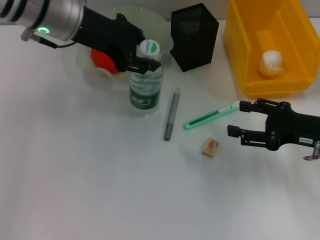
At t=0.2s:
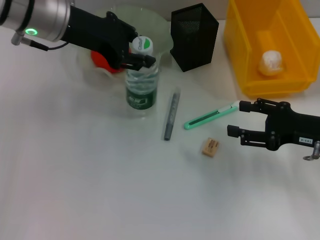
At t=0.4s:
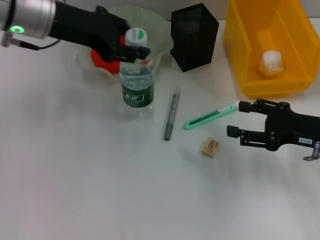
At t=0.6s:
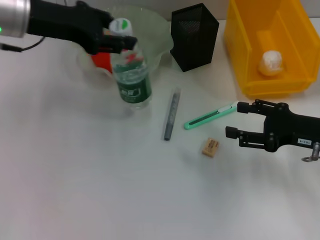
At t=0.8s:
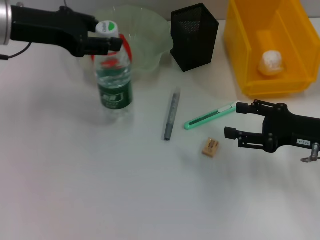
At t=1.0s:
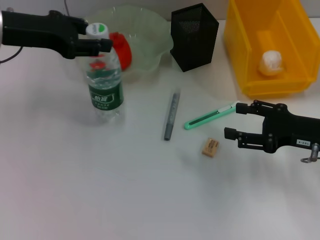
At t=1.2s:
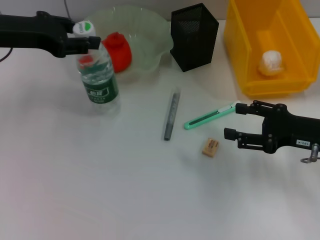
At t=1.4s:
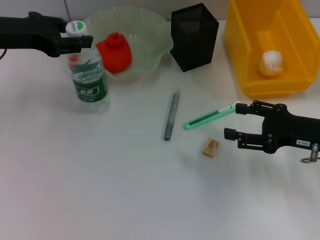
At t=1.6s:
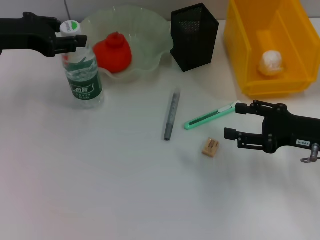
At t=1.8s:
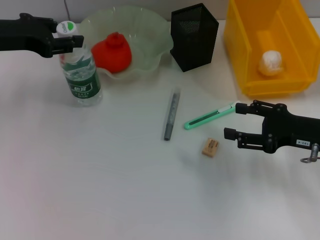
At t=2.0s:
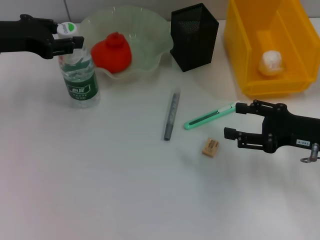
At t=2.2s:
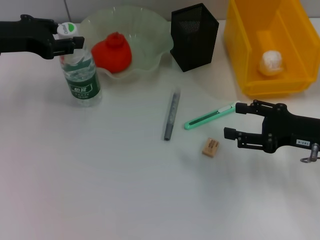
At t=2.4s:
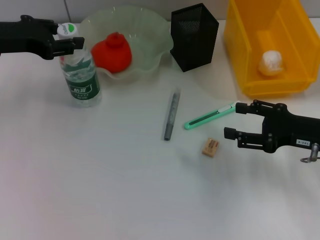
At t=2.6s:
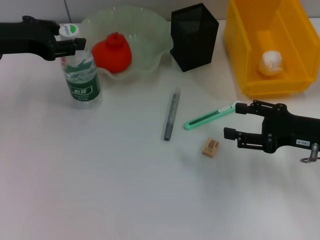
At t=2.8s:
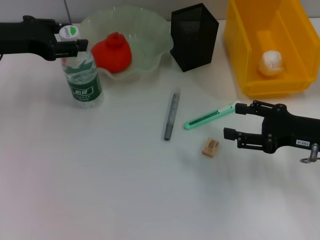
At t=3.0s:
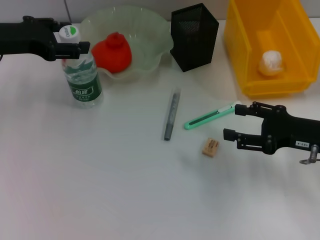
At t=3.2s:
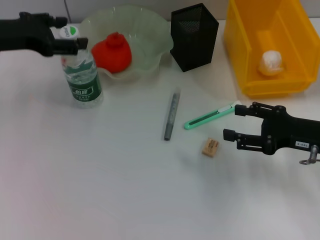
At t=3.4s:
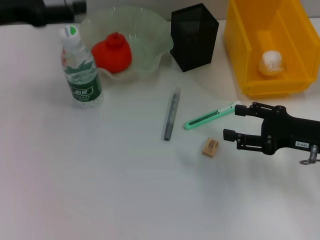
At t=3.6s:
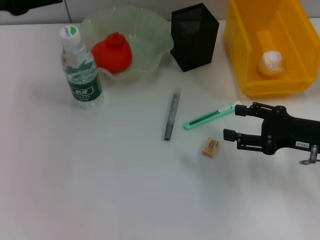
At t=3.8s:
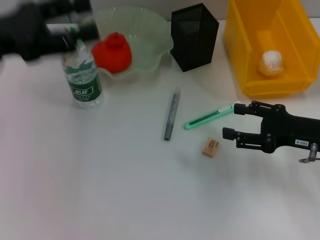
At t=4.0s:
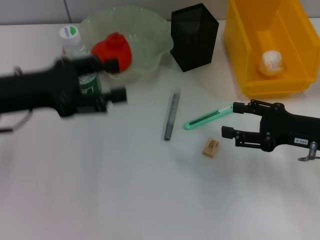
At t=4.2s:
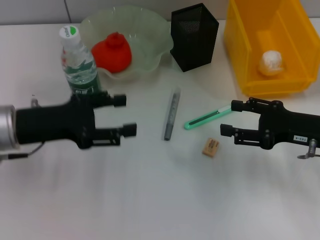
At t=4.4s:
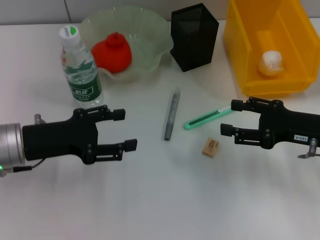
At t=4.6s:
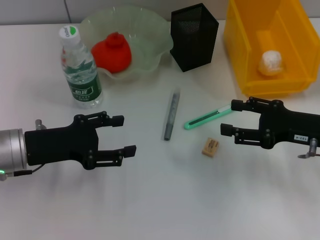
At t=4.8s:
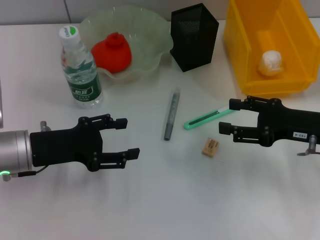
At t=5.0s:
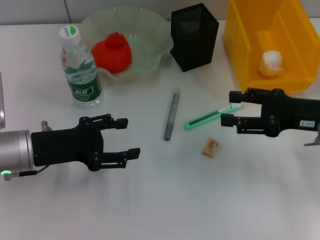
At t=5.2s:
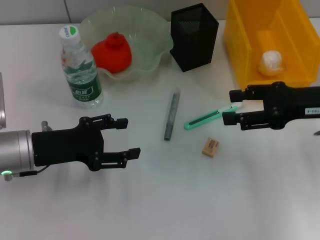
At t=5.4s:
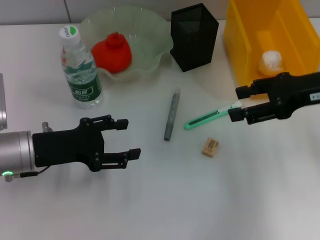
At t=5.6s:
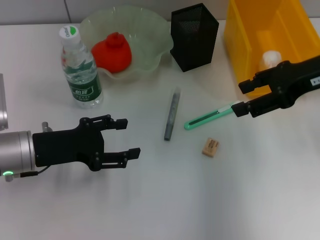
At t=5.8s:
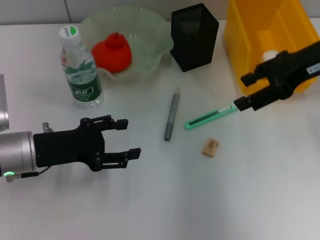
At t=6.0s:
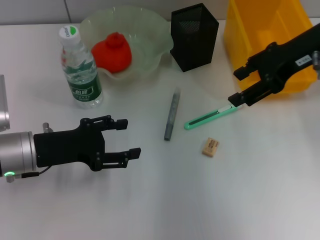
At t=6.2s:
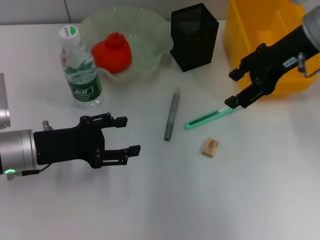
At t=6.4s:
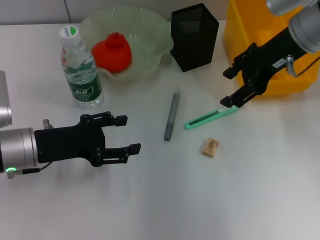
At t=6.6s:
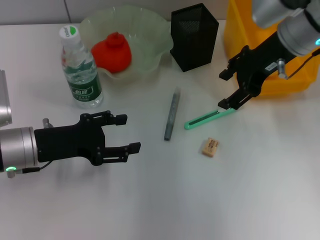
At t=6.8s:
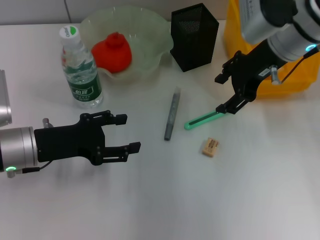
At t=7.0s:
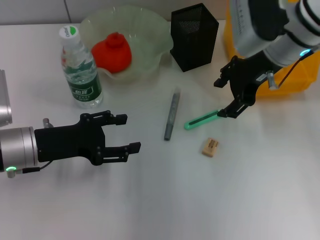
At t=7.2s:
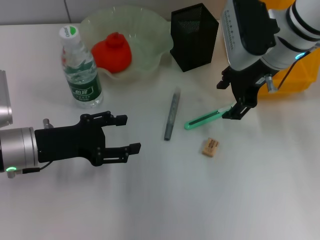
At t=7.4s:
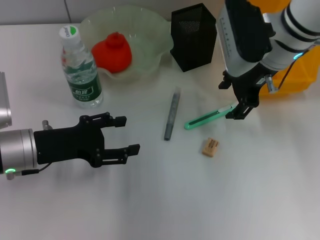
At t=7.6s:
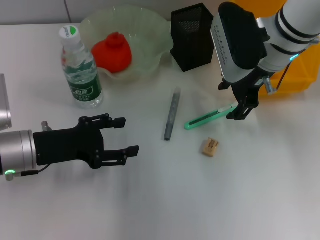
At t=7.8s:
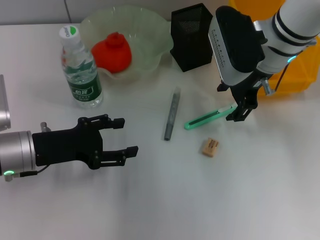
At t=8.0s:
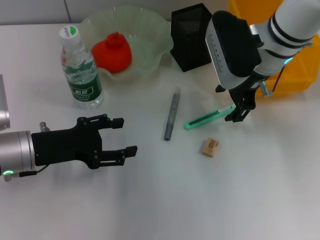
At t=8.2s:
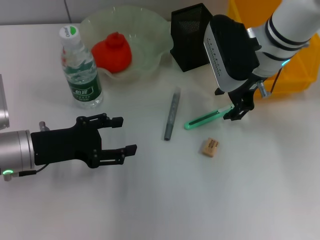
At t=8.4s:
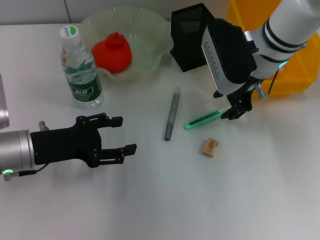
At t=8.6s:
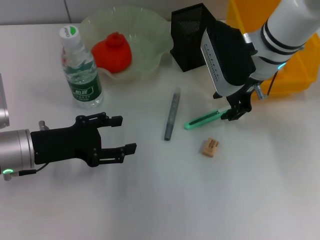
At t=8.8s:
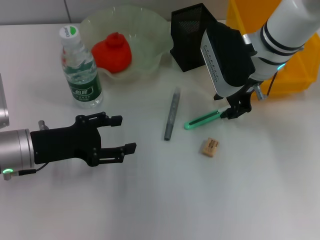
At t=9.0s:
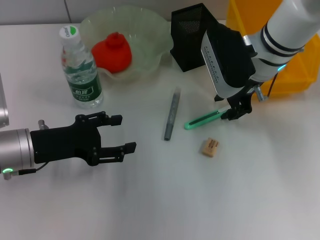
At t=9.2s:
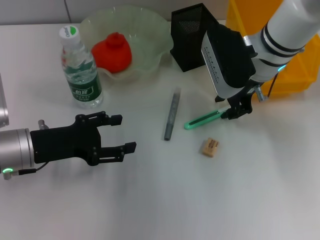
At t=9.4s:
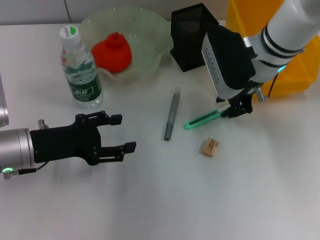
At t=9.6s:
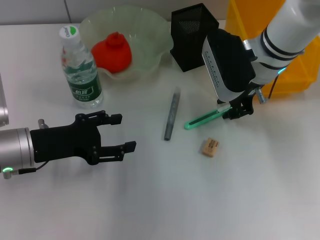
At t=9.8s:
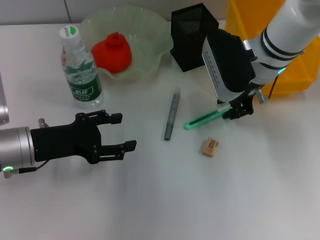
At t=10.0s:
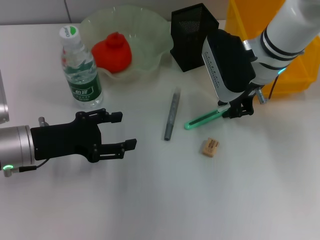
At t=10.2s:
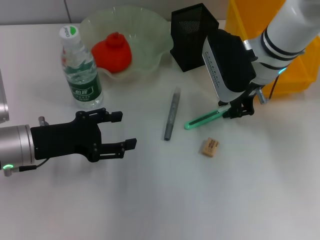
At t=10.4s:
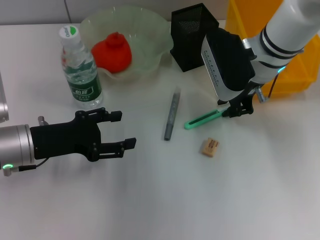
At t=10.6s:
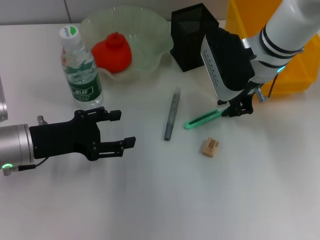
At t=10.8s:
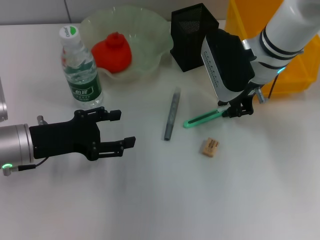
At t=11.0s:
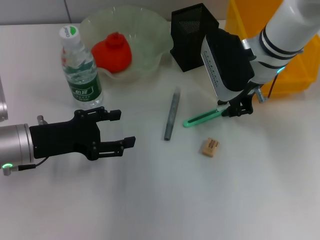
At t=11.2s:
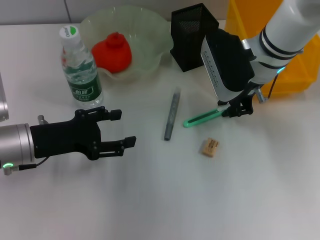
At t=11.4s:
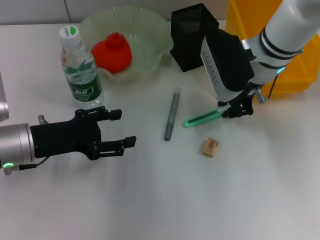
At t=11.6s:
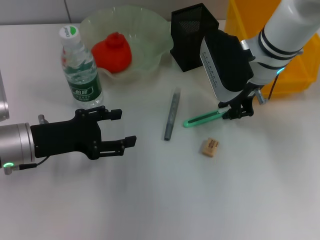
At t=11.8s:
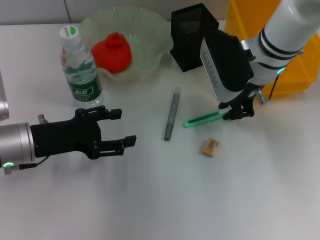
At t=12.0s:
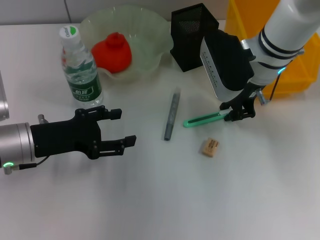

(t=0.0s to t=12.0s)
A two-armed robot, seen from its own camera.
Step, t=0.0s - t=2.8s: Place the water bottle on the table with the left hand.
t=0.0s - t=1.6s: The left gripper travels to the left by approximately 10 cm.
t=1.6s - t=3.0s: Both grippers stay about where they are.
t=3.0s - t=4.4s: The left gripper is displaced backward and downward by approximately 15 cm, and opens up.
t=4.4s - t=6.0s: The right gripper heads upward and forward, covering about 20 cm.
t=6.0s - t=7.6s: The right gripper travels to the left and downward by approximately 10 cm.
t=7.6s - t=9.0s: The right gripper closes up.
t=9.0s - t=12.0s: Neither gripper changes place.

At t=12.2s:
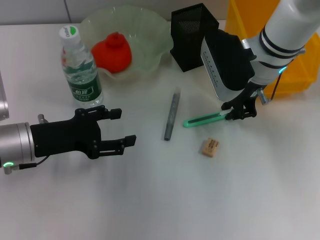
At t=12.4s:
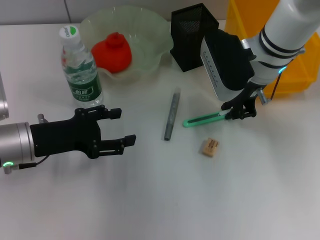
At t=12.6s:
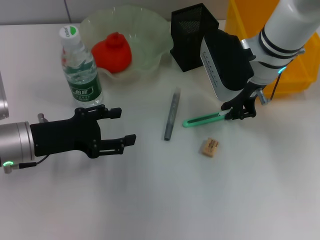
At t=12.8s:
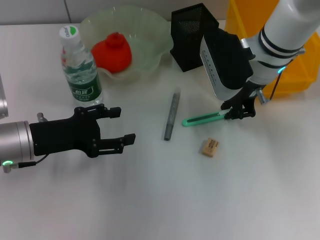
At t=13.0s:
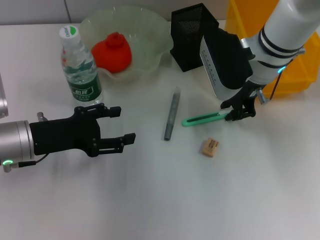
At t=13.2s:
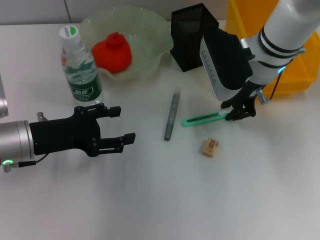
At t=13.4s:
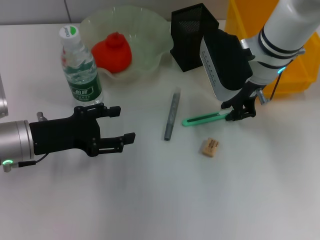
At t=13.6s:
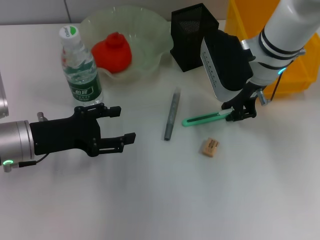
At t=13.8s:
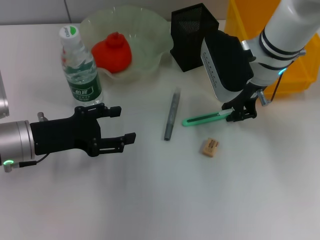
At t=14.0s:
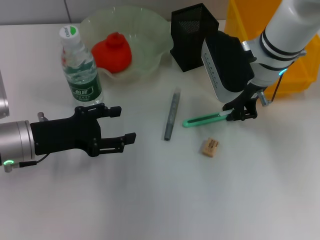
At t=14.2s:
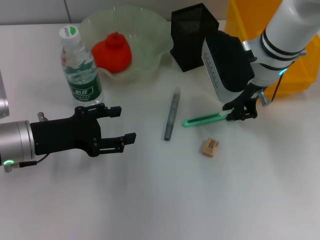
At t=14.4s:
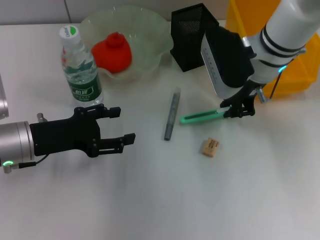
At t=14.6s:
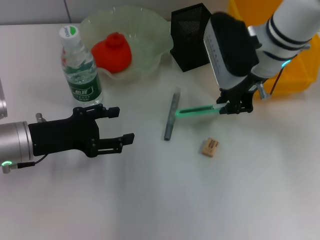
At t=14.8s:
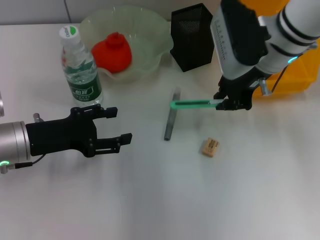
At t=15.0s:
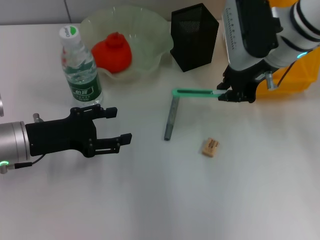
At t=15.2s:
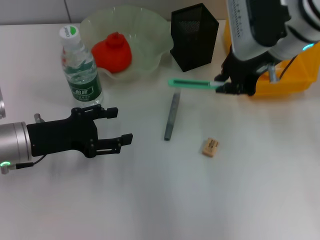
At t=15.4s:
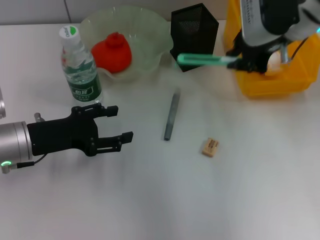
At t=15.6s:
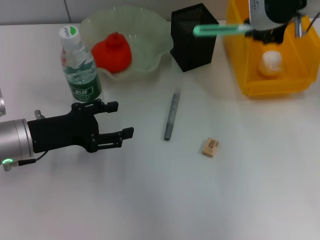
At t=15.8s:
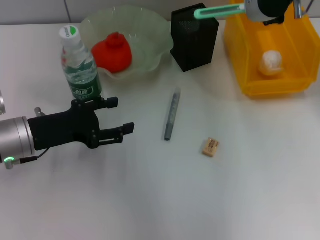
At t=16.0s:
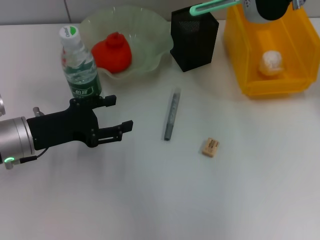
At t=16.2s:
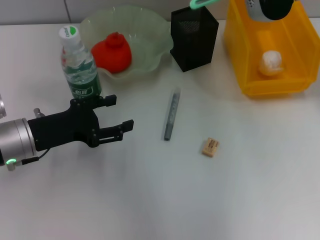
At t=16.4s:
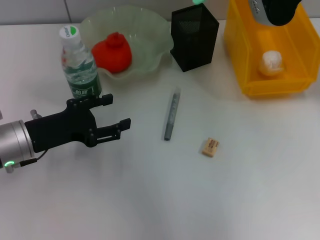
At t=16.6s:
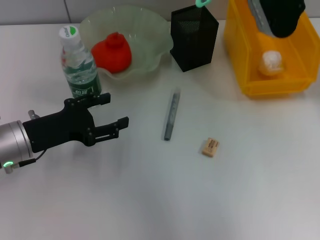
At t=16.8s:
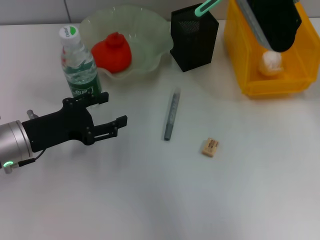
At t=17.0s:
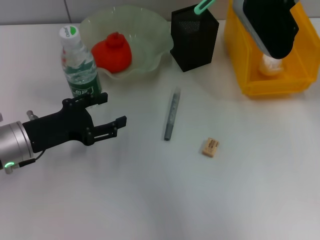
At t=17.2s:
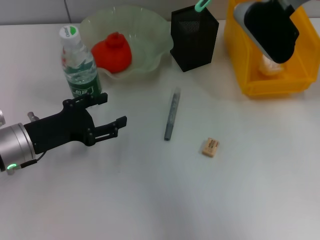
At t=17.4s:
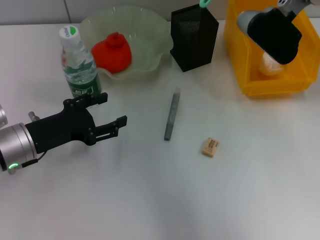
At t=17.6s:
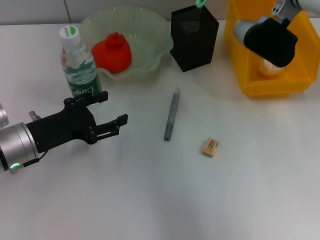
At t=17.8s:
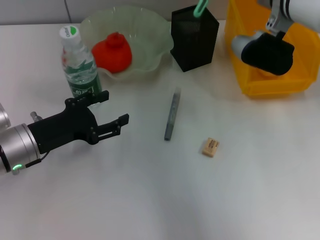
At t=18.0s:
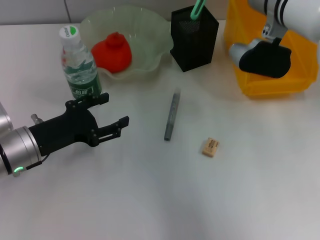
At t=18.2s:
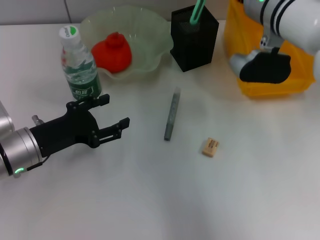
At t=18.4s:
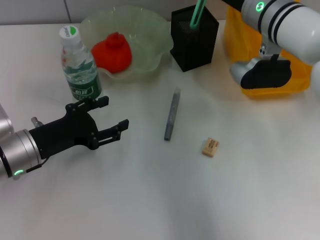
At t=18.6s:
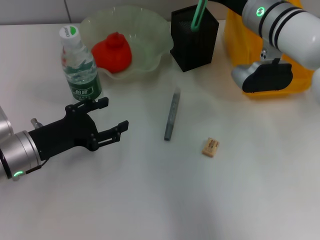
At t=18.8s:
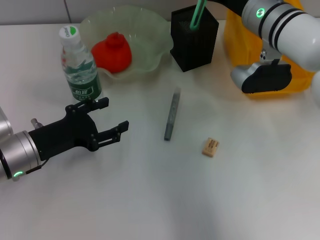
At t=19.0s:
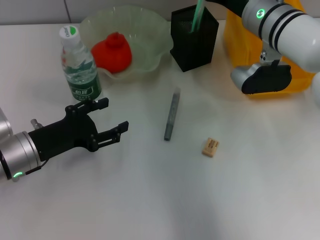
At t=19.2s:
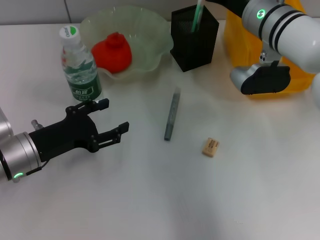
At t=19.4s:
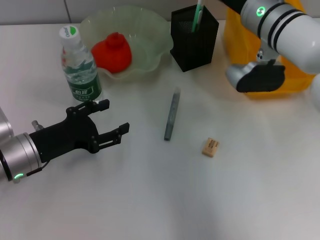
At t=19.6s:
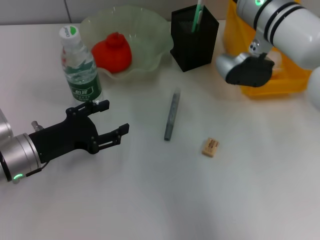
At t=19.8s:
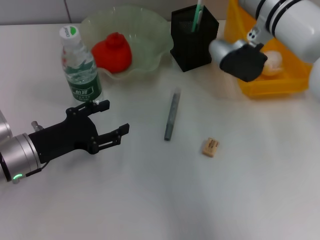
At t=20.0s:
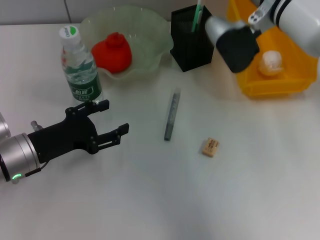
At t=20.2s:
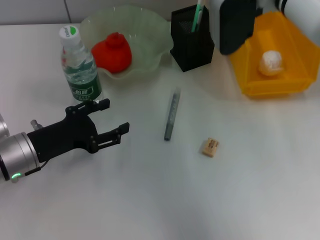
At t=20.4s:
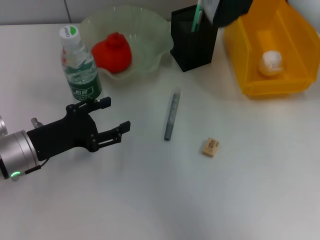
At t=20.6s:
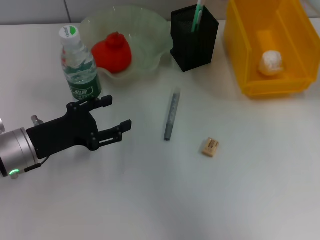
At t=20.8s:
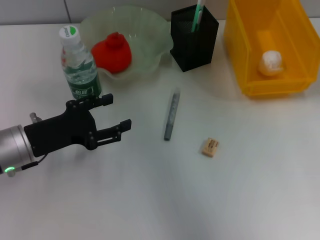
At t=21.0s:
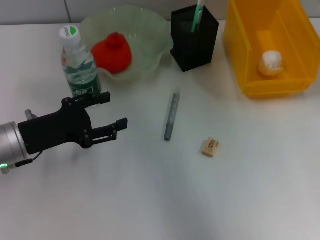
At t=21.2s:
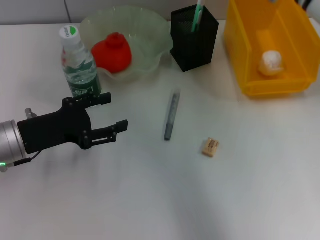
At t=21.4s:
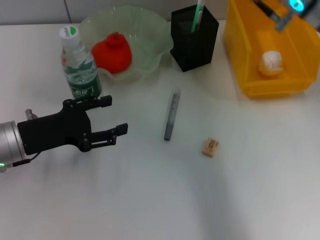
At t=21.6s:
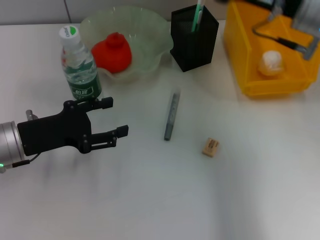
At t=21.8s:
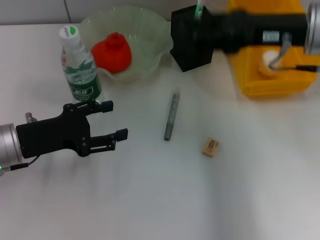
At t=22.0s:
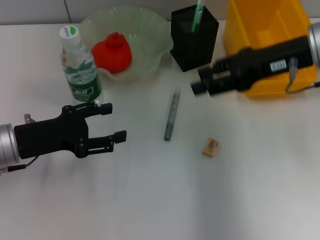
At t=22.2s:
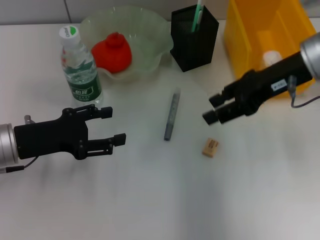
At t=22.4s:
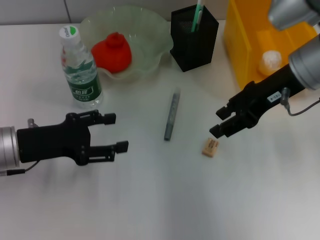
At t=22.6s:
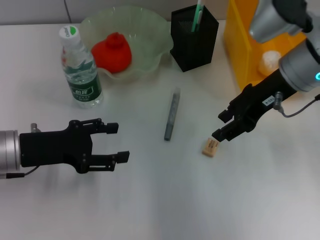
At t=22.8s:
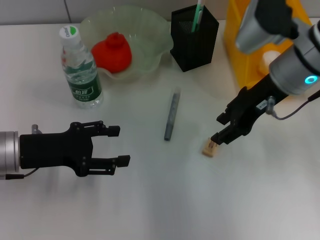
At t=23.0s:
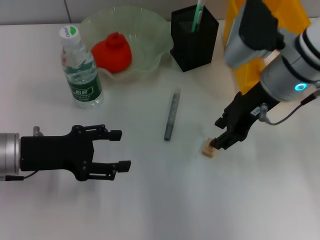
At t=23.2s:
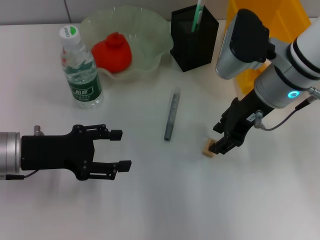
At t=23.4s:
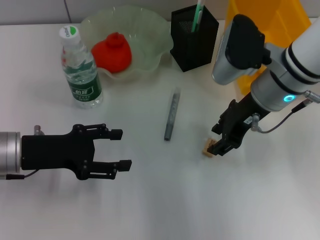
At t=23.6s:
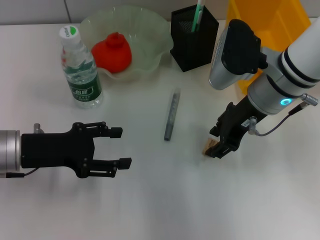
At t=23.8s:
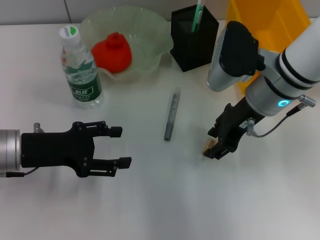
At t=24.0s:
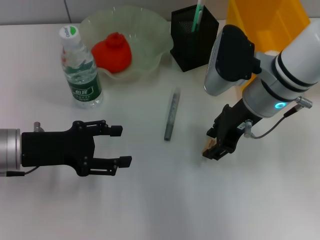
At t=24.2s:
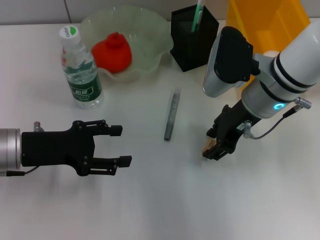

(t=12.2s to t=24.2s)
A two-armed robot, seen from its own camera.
Step, t=12.2s - t=14.2s: Grab the blue utility knife with the right hand.
Step, t=14.4s - t=19.2s: Place the blue utility knife into the pen holder with the right hand.
t=12.2s - t=13.8s: Both grippers stay about where they are.
t=13.8s - t=15.2s: The right gripper goes some 5 cm upward.
t=15.2s - t=16.6s: The right gripper ends up about 5 cm from where it was.
t=16.6s - t=18.2s: The right gripper moves downward, roughly 10 cm.
t=18.2s - t=19.8s: The right gripper opens up.
t=19.8s - t=21.2s: The right gripper moves upward, approximately 5 cm.
t=21.2s - t=22.6s: The right gripper moves downward, roughly 5 cm.
t=22.6s - t=24.2s: The right gripper shifts by some 5 cm.
